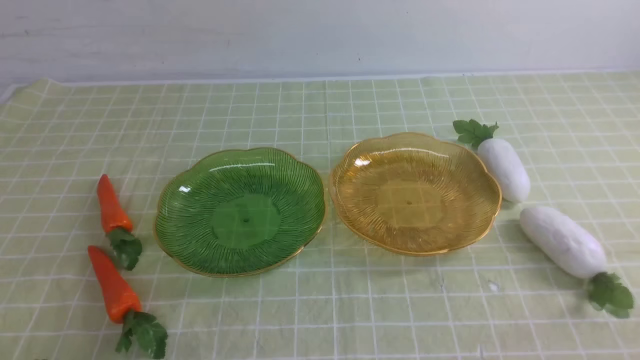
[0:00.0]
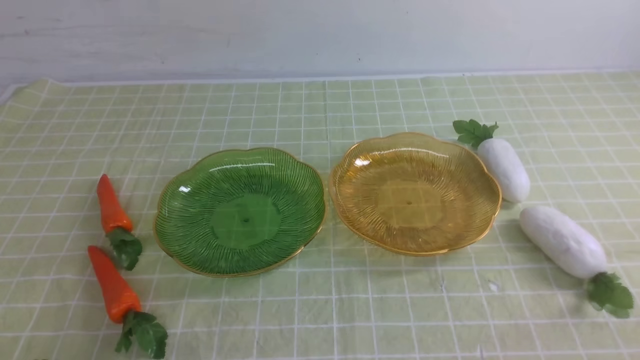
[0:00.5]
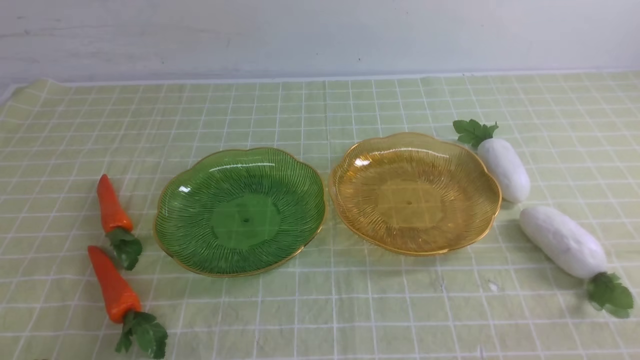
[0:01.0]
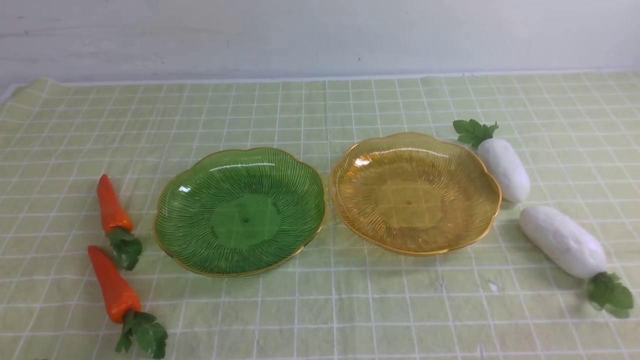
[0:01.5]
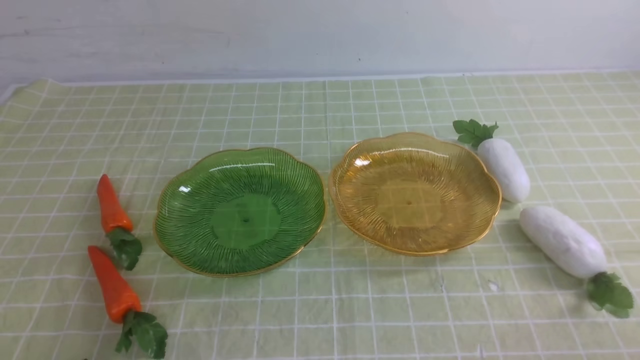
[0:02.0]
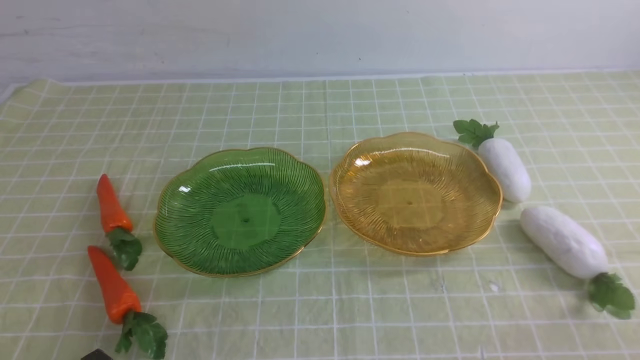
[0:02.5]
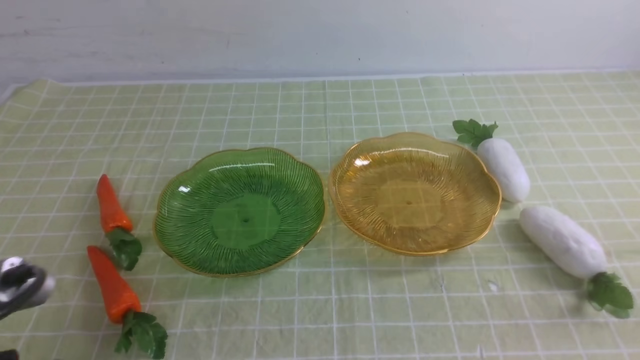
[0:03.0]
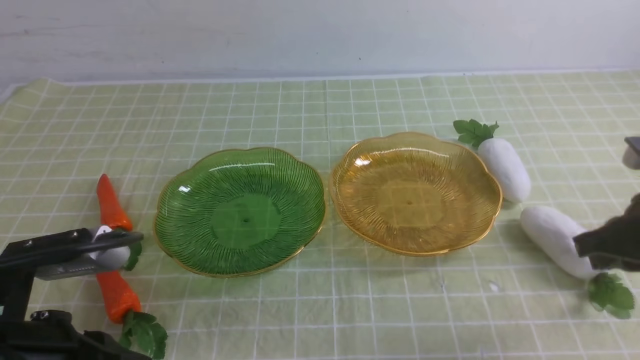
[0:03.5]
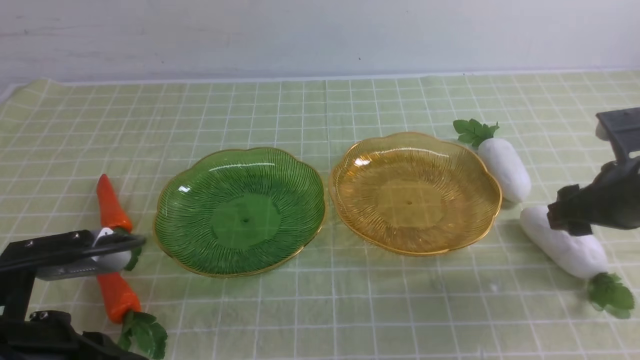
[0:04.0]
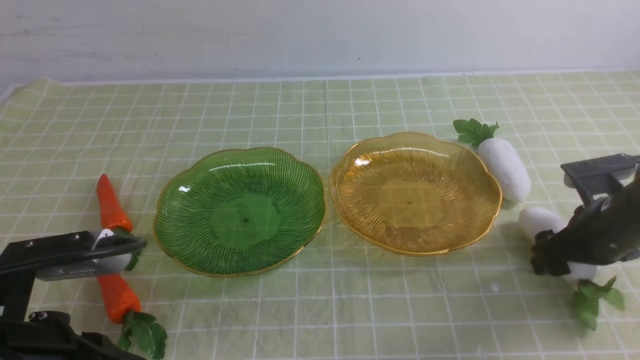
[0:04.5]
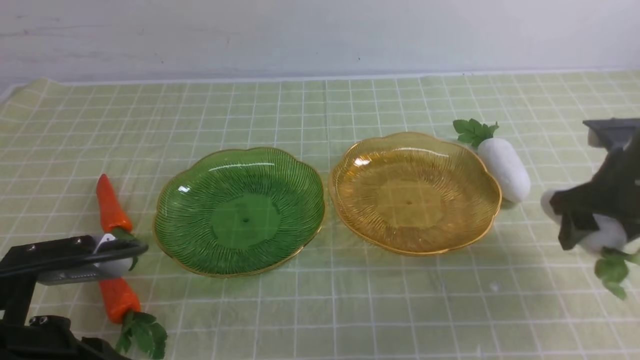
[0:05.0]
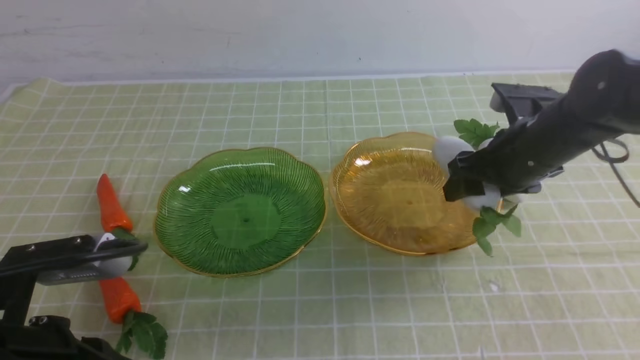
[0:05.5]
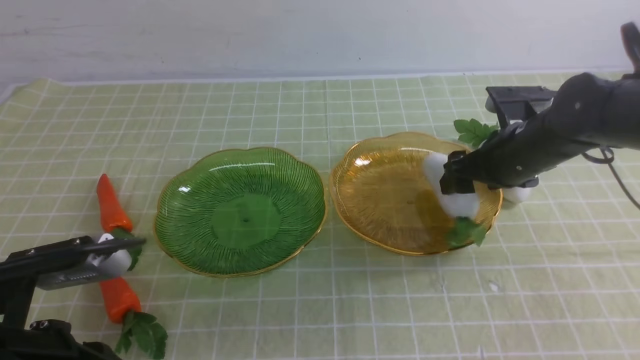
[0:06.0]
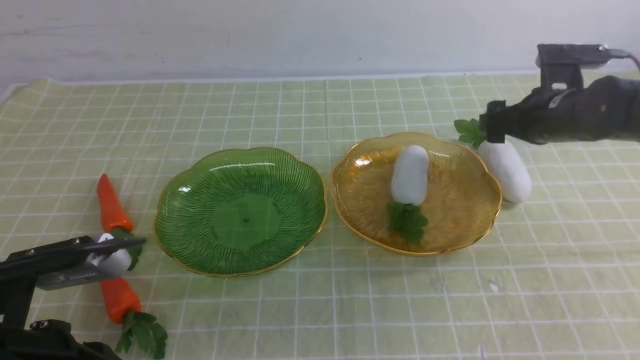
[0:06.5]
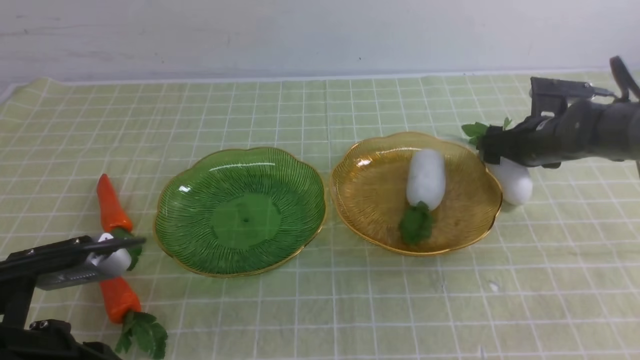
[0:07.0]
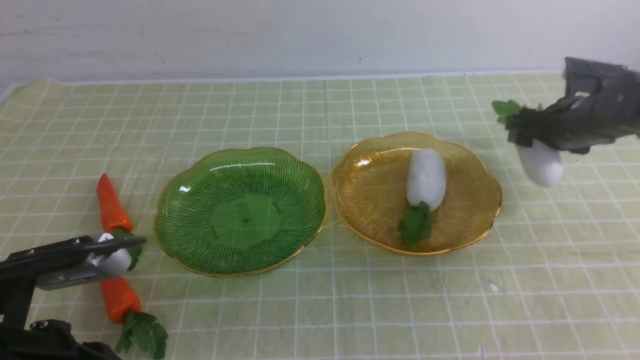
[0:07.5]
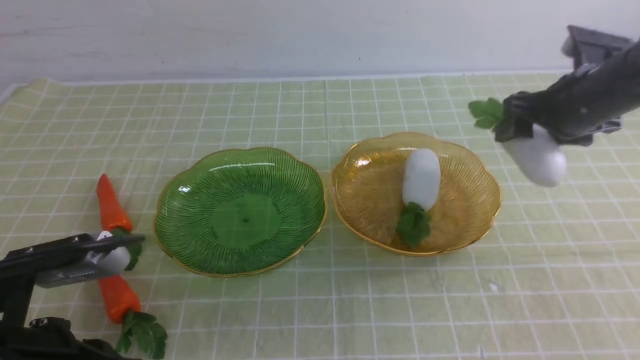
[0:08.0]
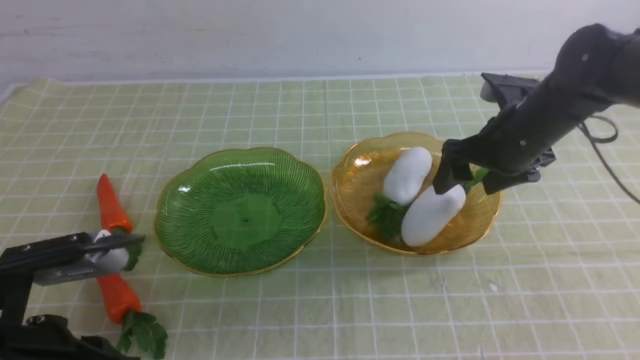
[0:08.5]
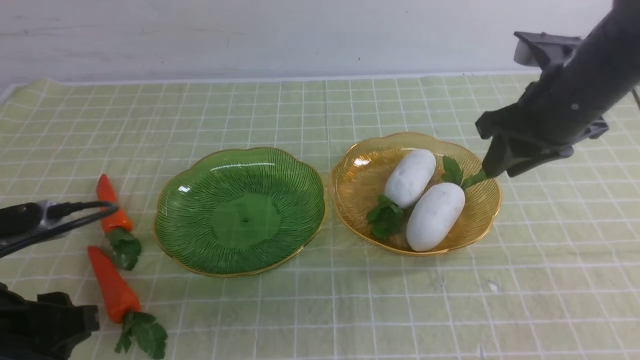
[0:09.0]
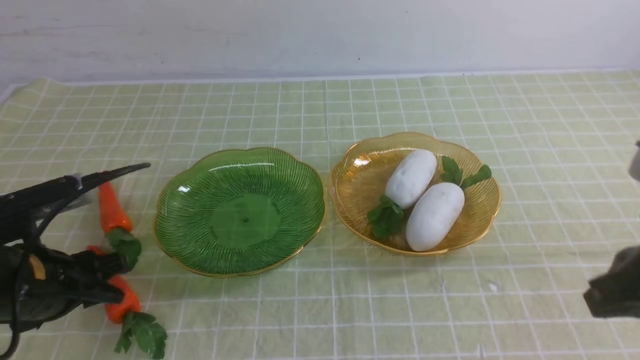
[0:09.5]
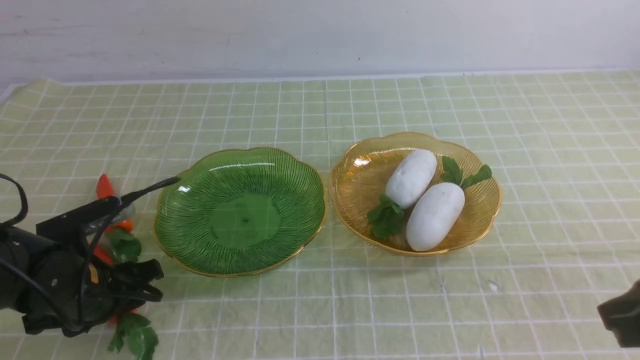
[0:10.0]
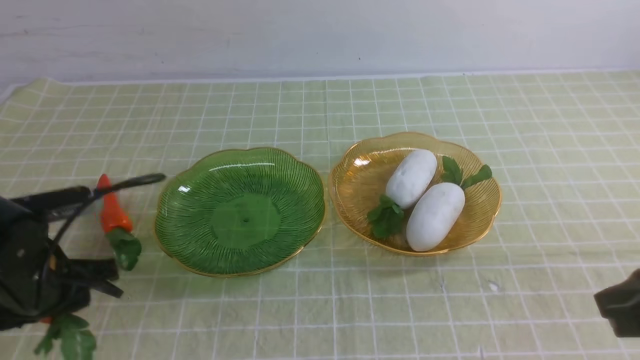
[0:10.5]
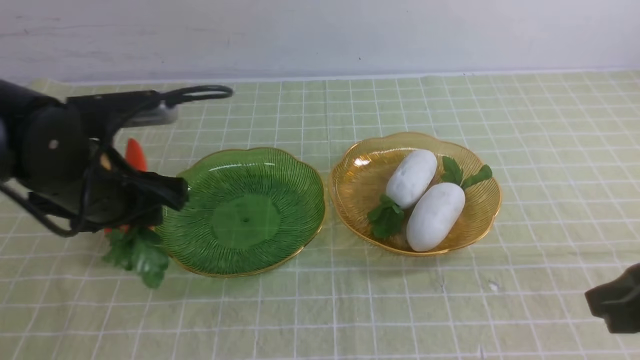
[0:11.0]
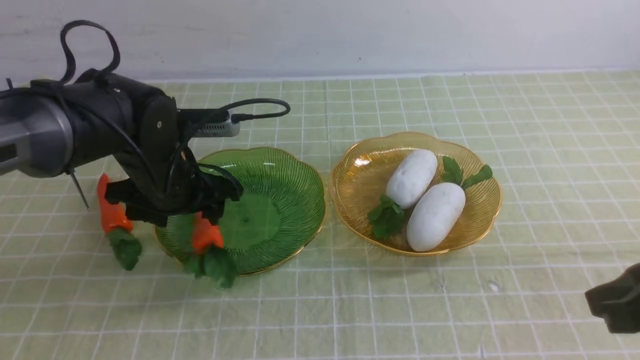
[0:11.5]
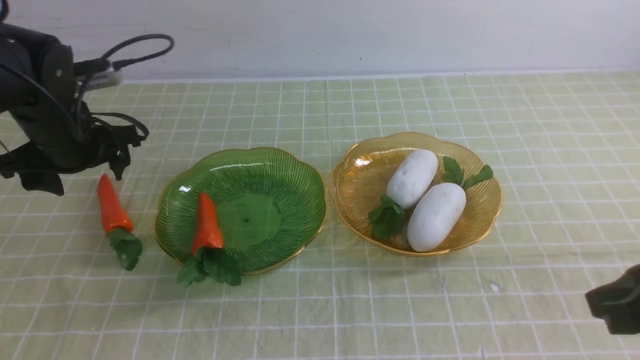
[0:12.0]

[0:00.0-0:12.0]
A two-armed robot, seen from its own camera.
Step, 0:00.0 to 0:08.0: use the right arm to grab a radish and put it into the right plate.
Step, 0:08.5 to 0:11.5: use the left arm to grab a carrot and put it into the left plate.
0:02.0 to 0:04.0: The right gripper travels forward by some 25 cm, and opens its fingers. The left gripper moves upward and forward, some 10 cm.
0:04.0 to 0:06.0: The right gripper shifts about 10 cm forward and to the left.
0:06.0 to 0:08.0: The right gripper is displaced to the right and upward by roughly 10 cm.
0:08.0 to 0:10.0: The left gripper shifts approximately 15 cm forward and downward, and opens. The right gripper goes roughly 25 cm backward, and closes.
0:10.0 to 0:12.0: The left gripper heads forward and upward, covering some 15 cm, and opens.

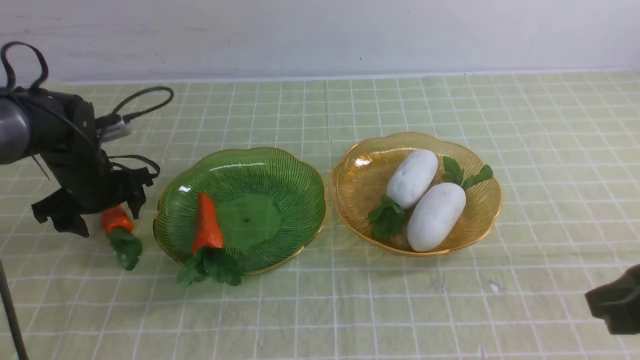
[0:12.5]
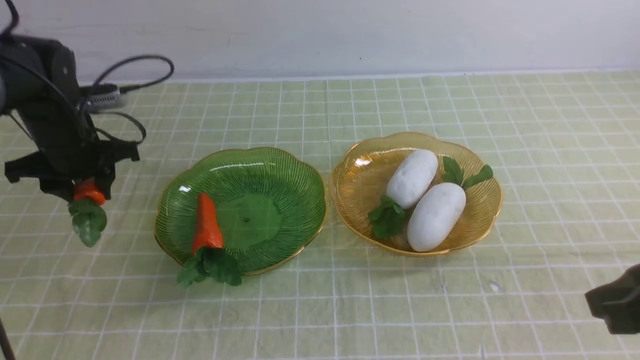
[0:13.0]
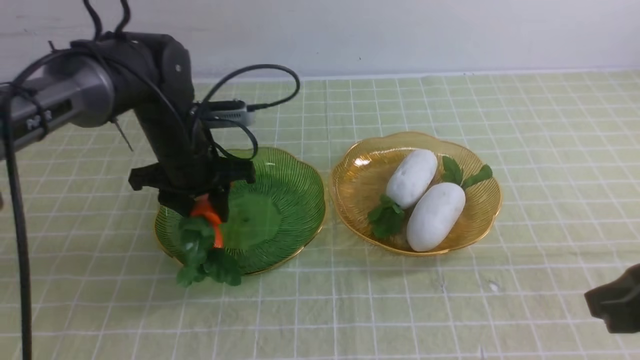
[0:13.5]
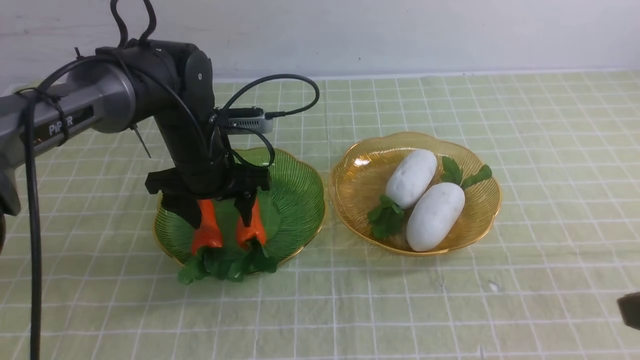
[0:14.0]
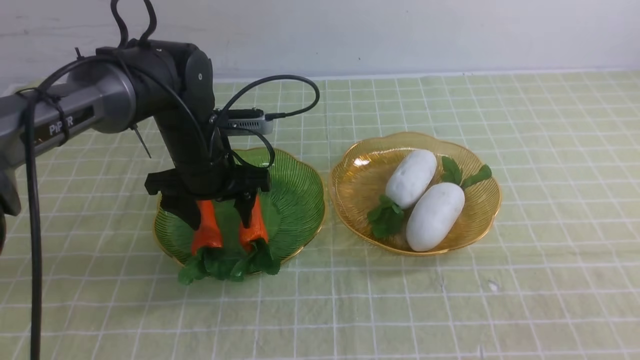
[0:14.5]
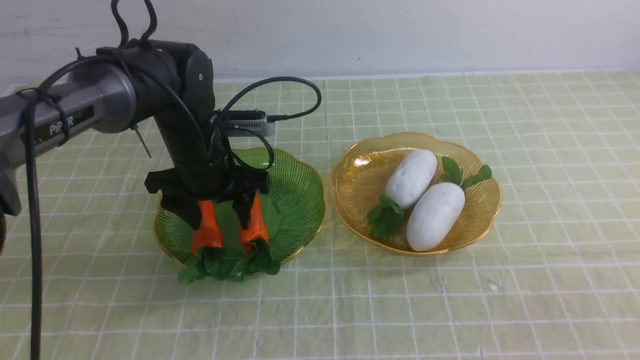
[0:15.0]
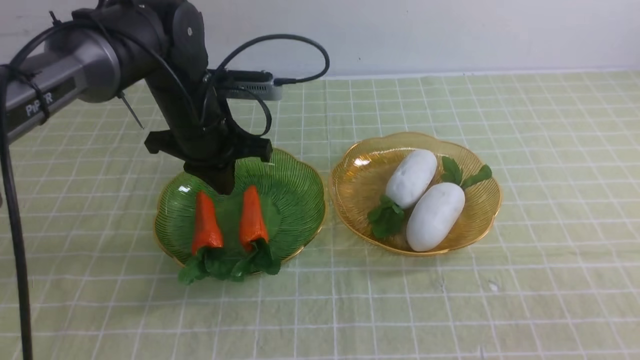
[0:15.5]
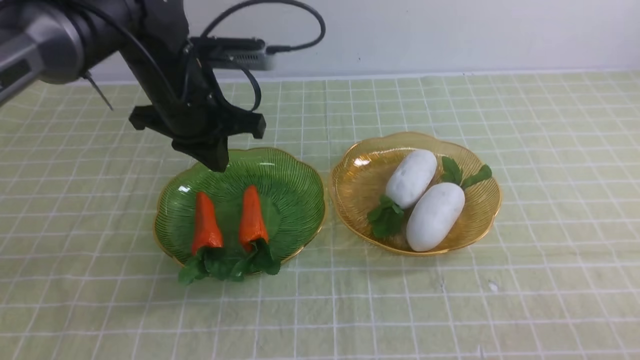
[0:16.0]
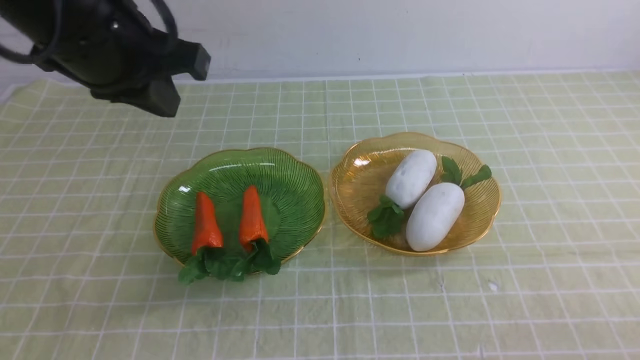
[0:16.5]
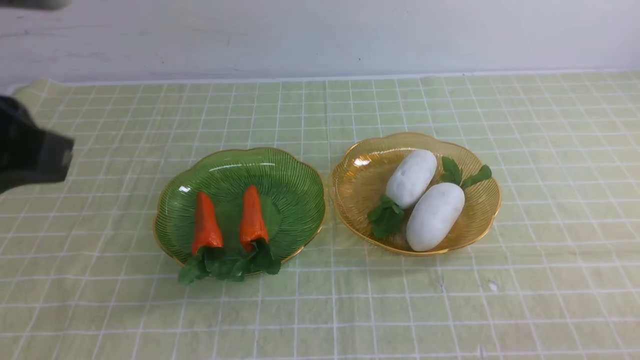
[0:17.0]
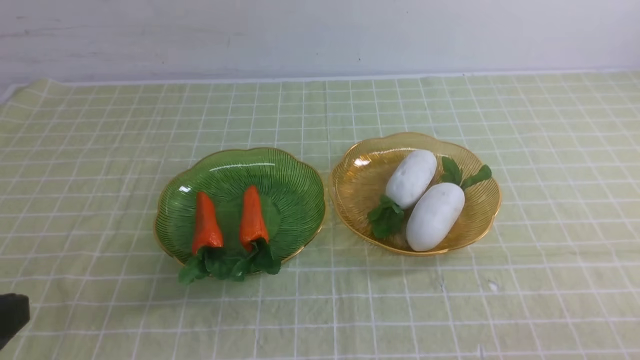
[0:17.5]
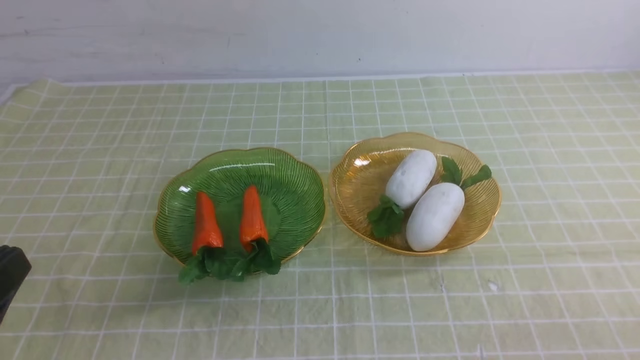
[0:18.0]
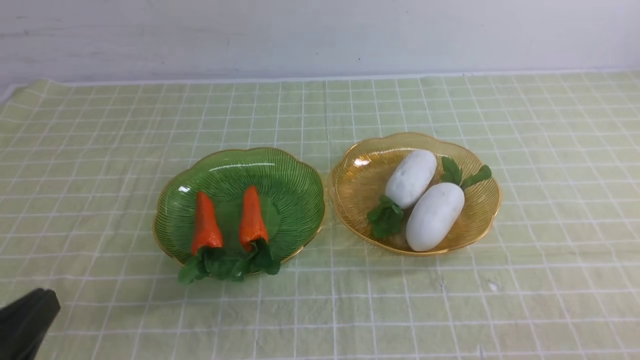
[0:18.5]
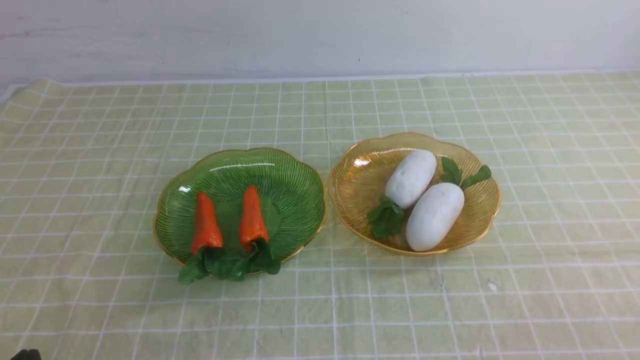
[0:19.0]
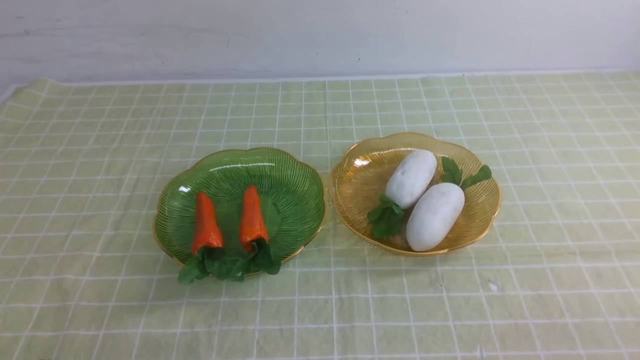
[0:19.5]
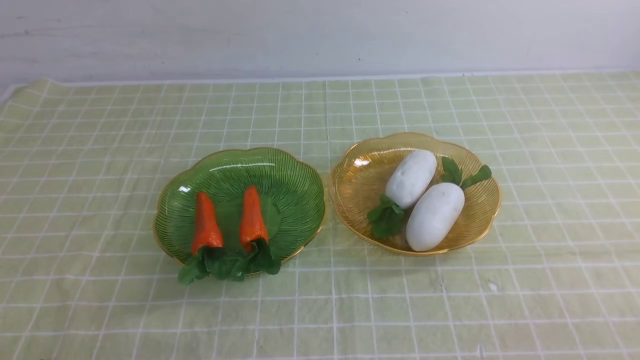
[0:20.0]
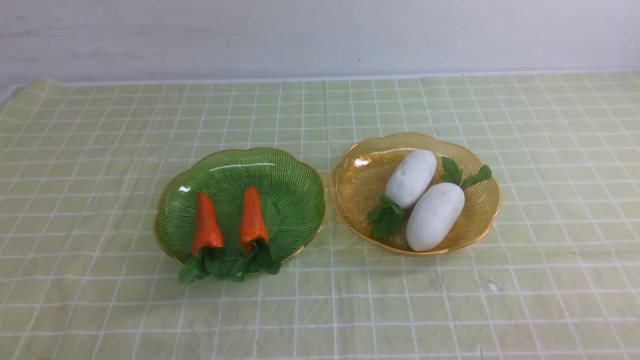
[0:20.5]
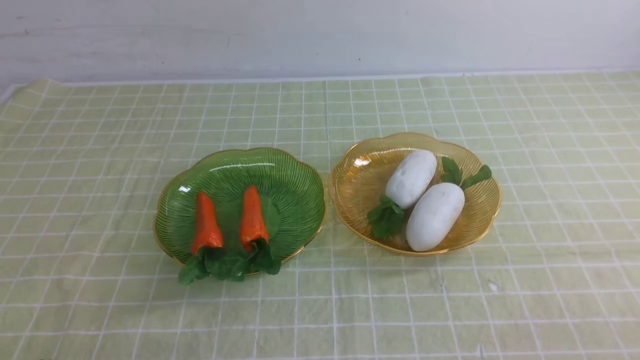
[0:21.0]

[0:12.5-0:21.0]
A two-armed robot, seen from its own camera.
0:12.5 to 0:14.5: The left gripper goes some 15 cm to the right, and closes and opens again. The right gripper goes some 10 cm backward.
0:14.5 to 0:16.5: The left gripper goes roughly 20 cm upward and backward, and closes up. Meanwhile the right gripper moves downward, about 15 cm.
0:16.5 to 0:19.0: The left gripper goes roughly 35 cm backward and downward.
0:19.0 to 0:21.0: Both grippers stay about where they are.
